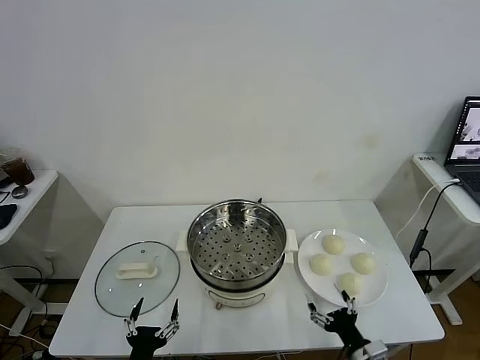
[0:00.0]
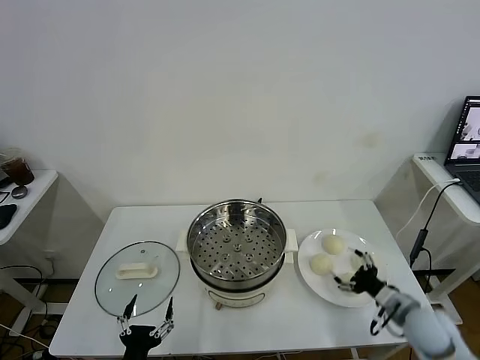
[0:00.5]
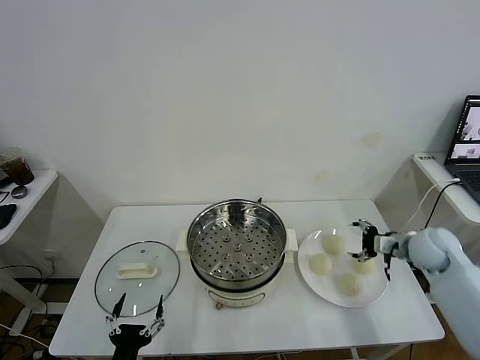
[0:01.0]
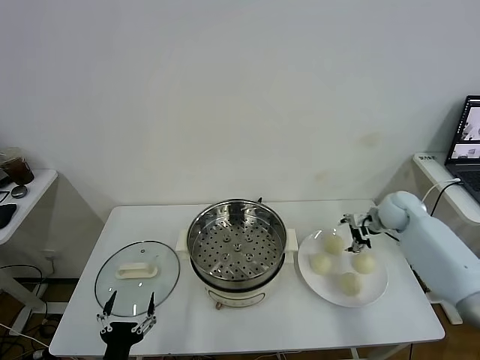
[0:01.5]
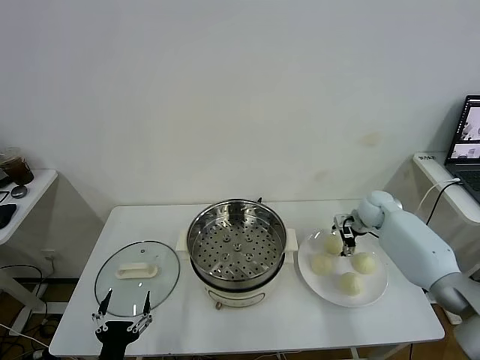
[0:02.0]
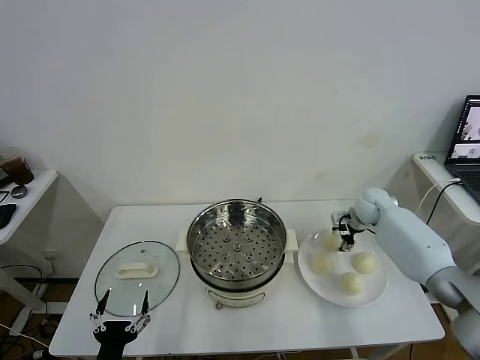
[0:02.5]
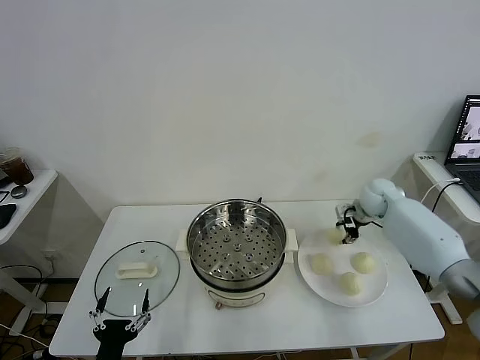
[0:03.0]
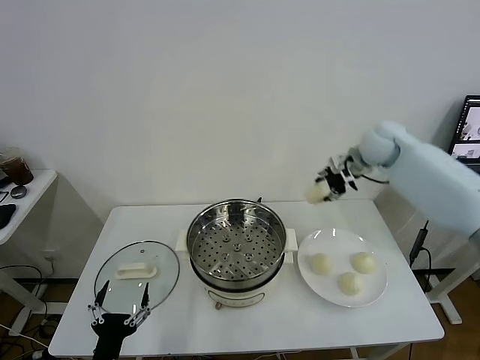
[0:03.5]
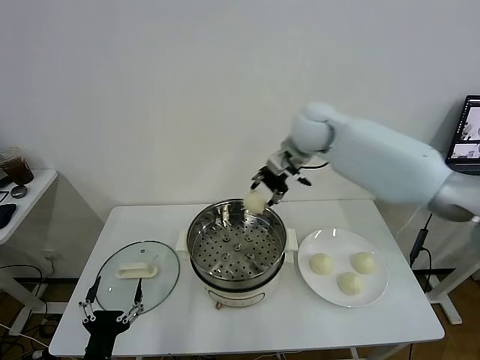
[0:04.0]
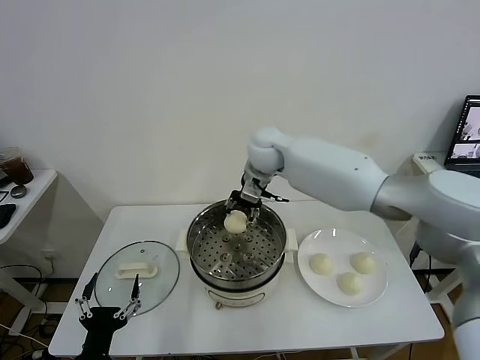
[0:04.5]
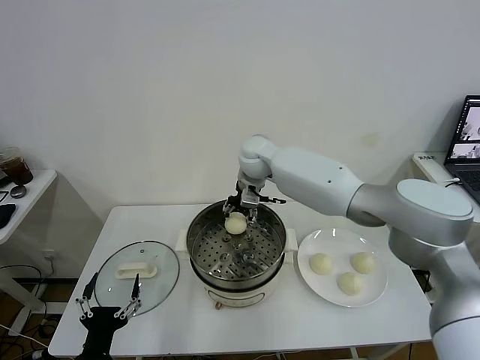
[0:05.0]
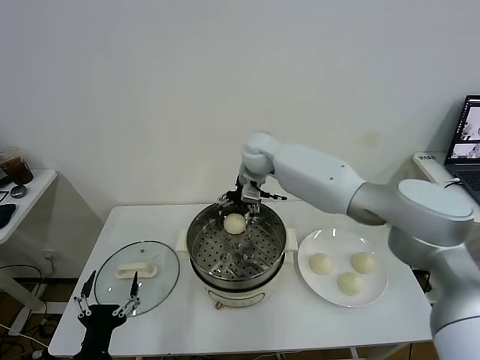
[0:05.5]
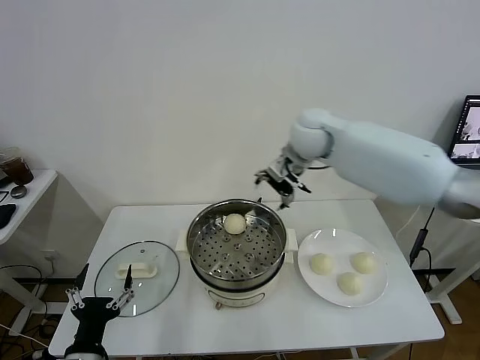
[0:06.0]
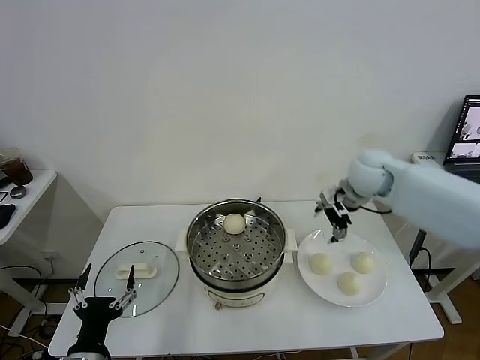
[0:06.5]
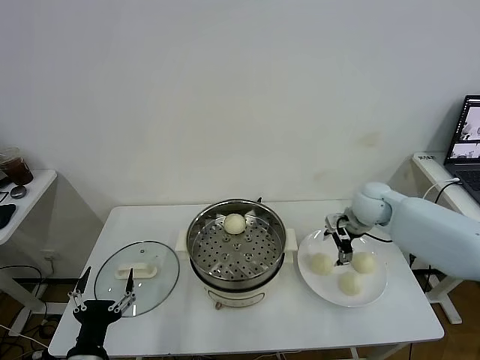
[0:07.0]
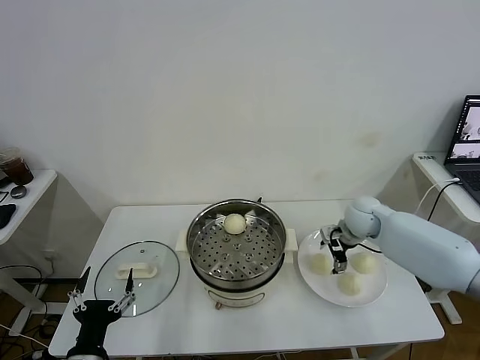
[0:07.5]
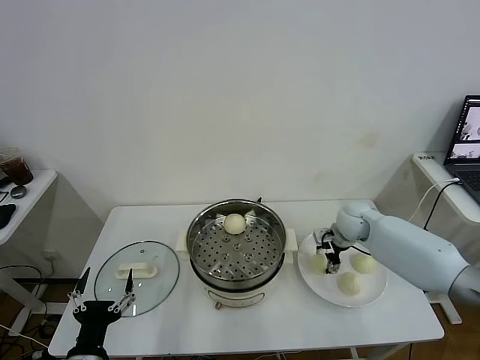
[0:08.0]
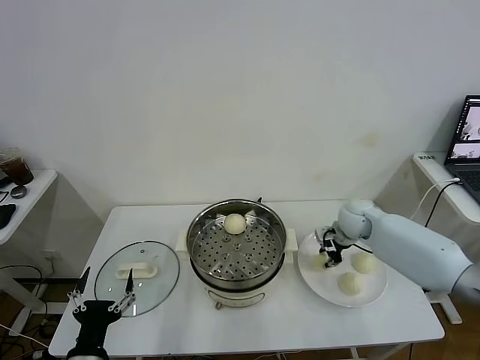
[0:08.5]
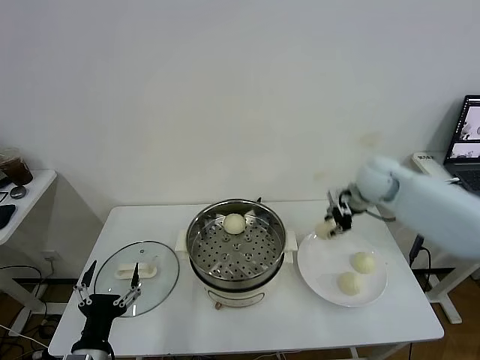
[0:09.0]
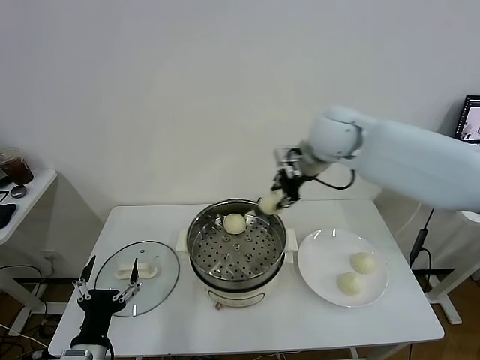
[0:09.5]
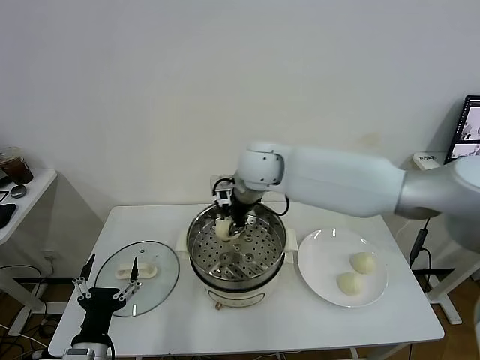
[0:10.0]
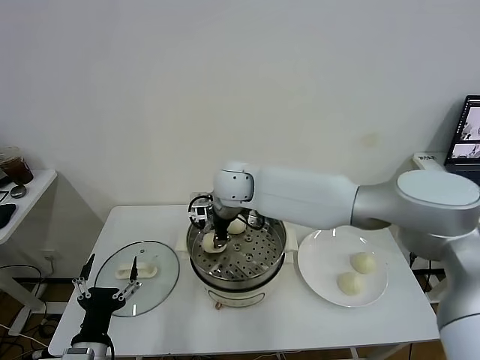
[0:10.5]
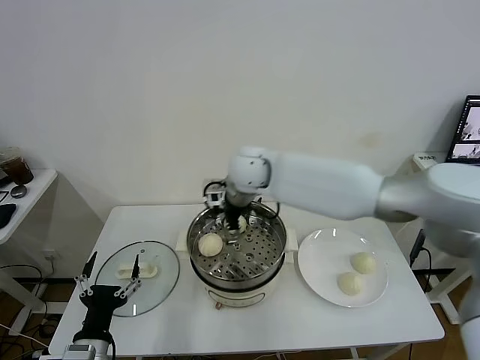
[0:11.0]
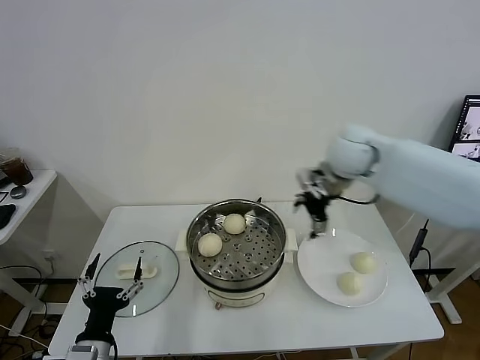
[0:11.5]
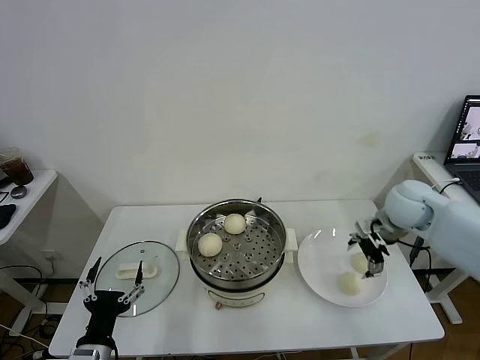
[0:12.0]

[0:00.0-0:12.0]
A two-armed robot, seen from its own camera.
Task of the whole recording: take steamed baozi put them in steamer.
Step, 0:00.0 to 0:02.5: Grasp the baozi in the plate with right gripper.
Step, 0:03.0 to 0:05.0: Place the baozi on the steamer with right gripper.
Step, 0:06.0 to 0:08.0: Grasp the baozi in the plate with right gripper.
Step, 0:09.0 to 0:10.5: Place the baozi on the steamer with right gripper.
0:02.0 to 0:04.0: The right gripper shifts about 35 cm to the left and upward, and closes up.
0:04.0 to 0:06.0: The right gripper heads to the right, covering about 10 cm, and opens its fingers.
0:06.0 to 0:08.0: The right gripper goes about 25 cm downward and to the right, and closes its fingers.
0:08.0 to 0:10.0: The right gripper shifts roughly 35 cm to the left and upward, and closes its fingers.
0:10.0 to 0:12.0: The right gripper shifts some 35 cm to the right, and opens its fingers.

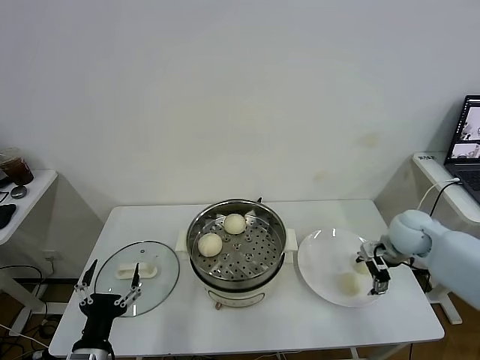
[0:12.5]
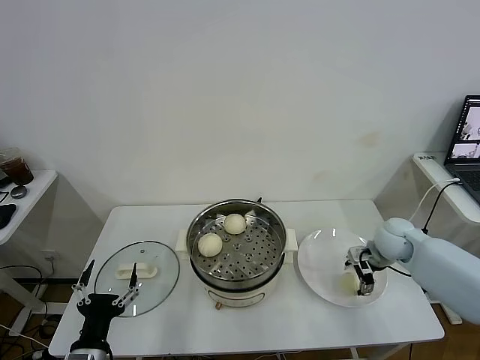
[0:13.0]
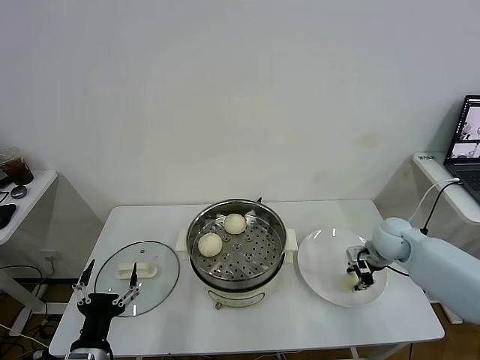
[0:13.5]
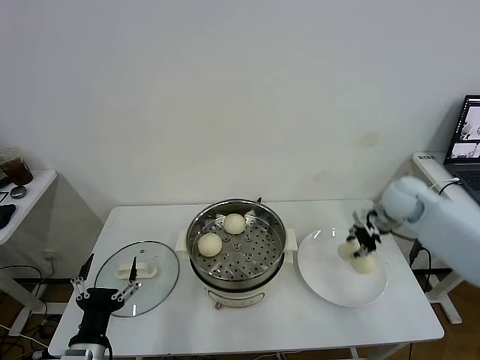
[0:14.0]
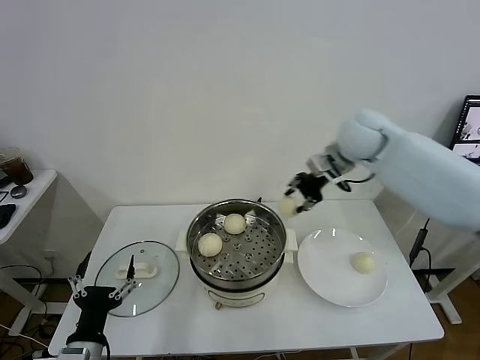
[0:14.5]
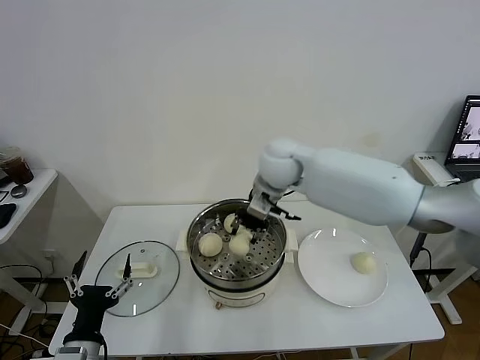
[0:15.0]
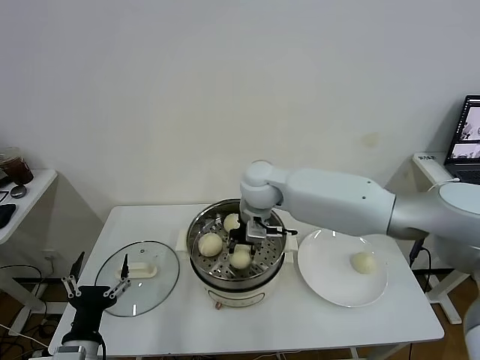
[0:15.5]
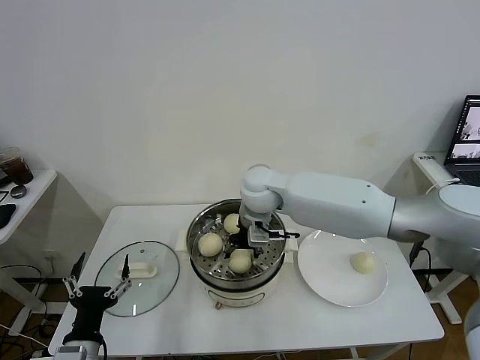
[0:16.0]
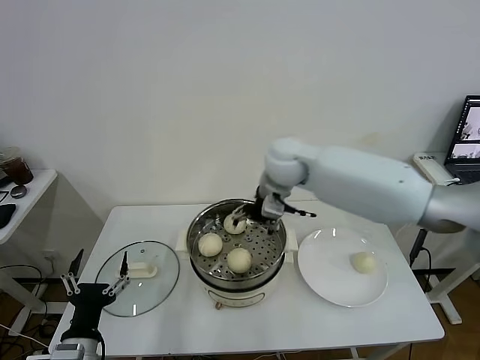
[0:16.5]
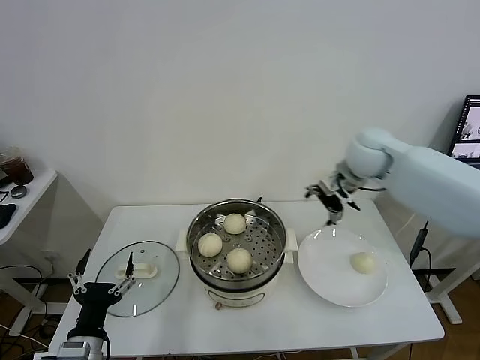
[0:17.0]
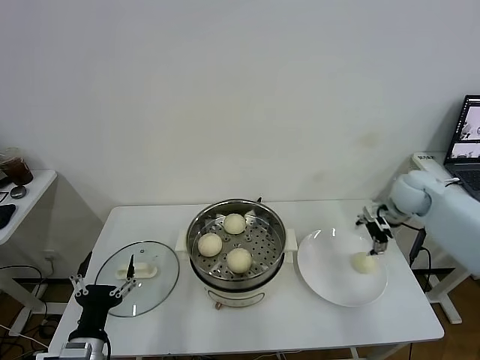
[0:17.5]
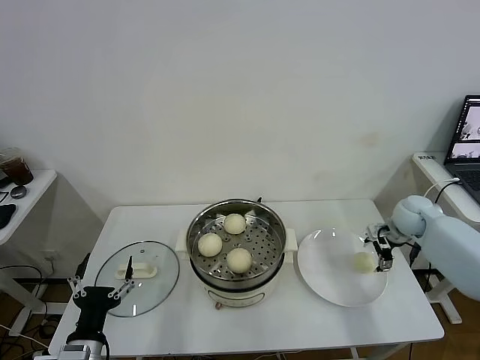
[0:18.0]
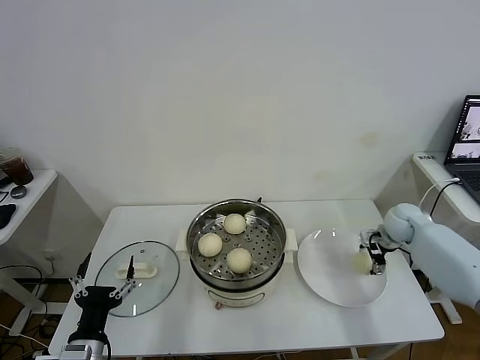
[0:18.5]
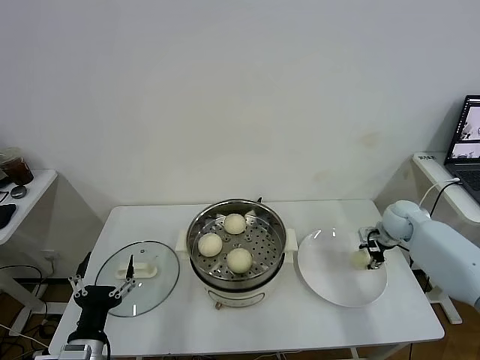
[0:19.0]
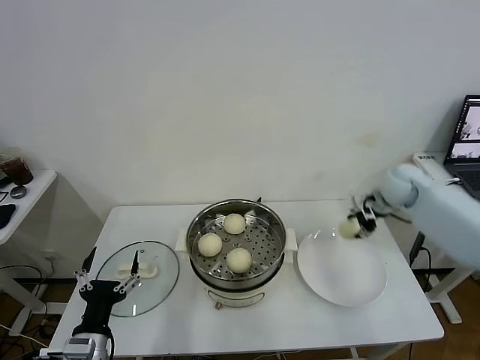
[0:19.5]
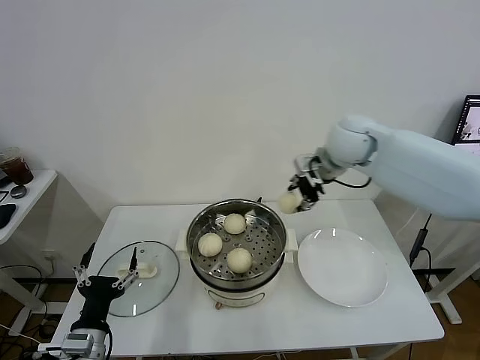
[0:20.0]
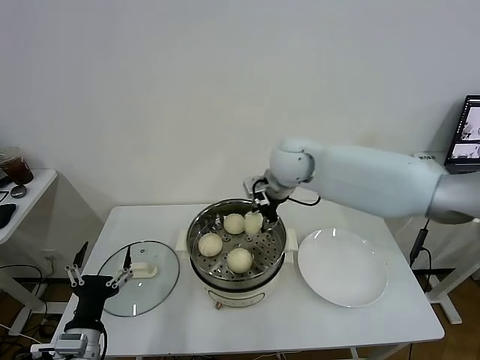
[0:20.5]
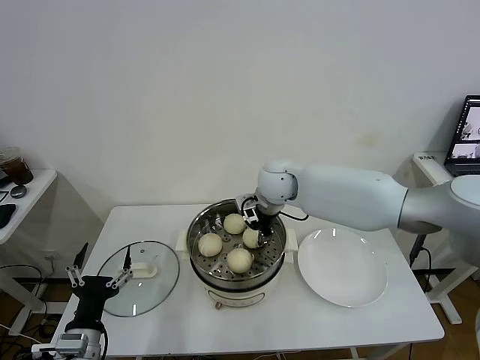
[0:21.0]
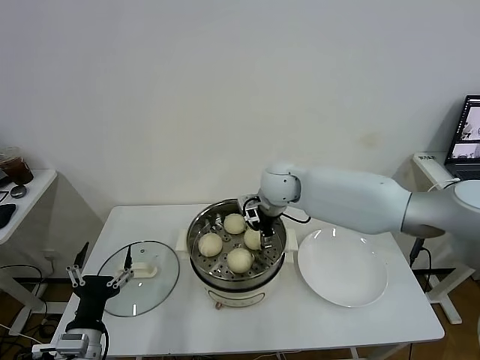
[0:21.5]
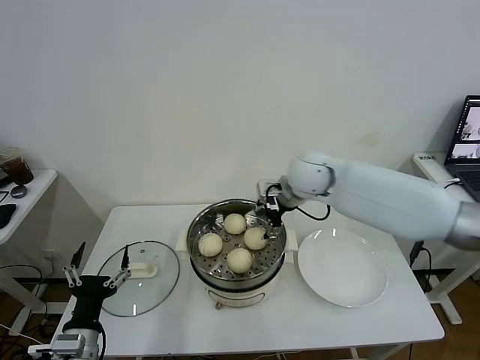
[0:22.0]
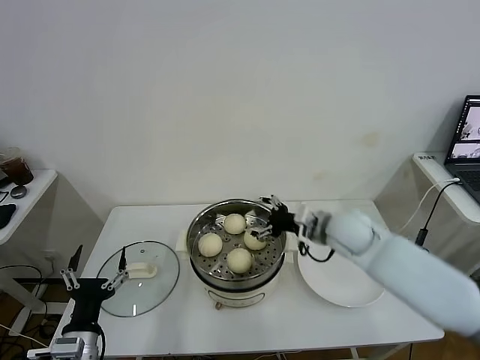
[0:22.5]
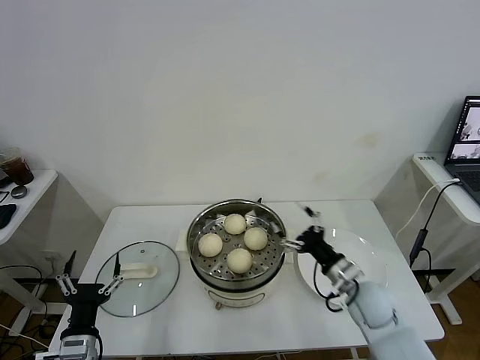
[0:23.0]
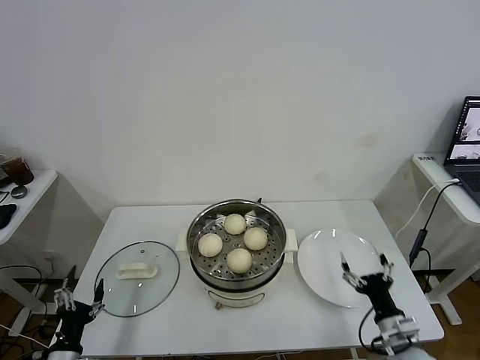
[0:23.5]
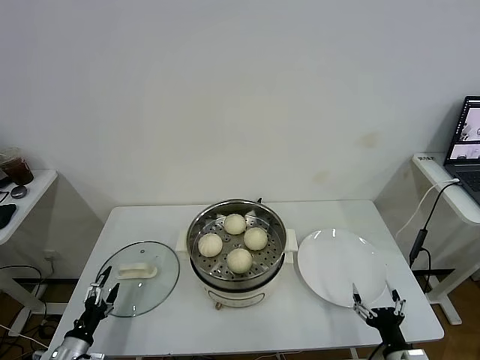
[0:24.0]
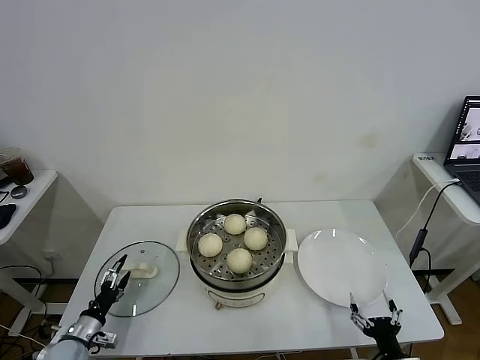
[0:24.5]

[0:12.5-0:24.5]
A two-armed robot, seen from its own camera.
Task of the whole recording: take steamed baozi put them in steamer.
Step, 0:14.0 to 0:16.0: Place the baozi on the steamer with right gripper.
Step, 0:16.5 to 0:19.0: Grasp the baozi in the plate with right gripper.
Step, 0:19.5 to 0:21.5: Place the baozi on the steamer with right gripper.
0:12.5 to 0:14.5: The right gripper is displaced upward, to the left and forward by some 30 cm, and closes its fingers.
0:14.5 to 0:16.5: The right gripper goes roughly 10 cm to the left, and opens up.
0:16.5 to 0:18.5: The right gripper shifts approximately 35 cm to the right and downward.
0:18.5 to 0:20.5: The right gripper travels to the left and upward by roughly 35 cm, and closes up.
0:20.5 to 0:22.5: The right gripper shifts about 20 cm to the right, downward and backward, and opens.
0:22.5 to 0:24.5: The right gripper moves backward, downward and to the right, roughly 40 cm. The left gripper heads downward, to the left and forward, covering roughly 20 cm.

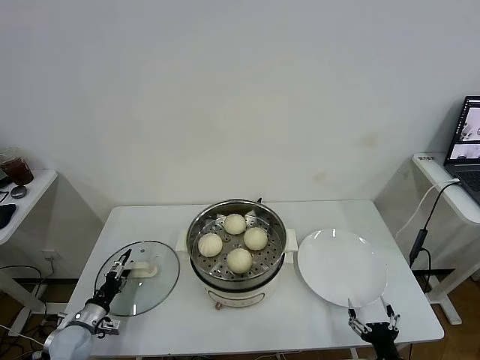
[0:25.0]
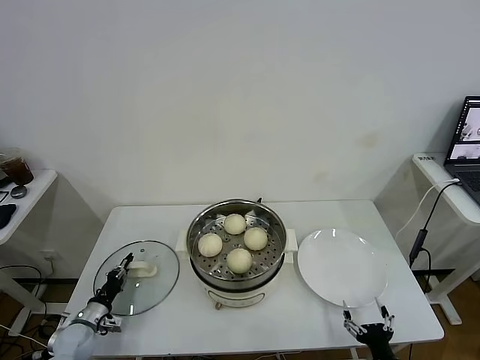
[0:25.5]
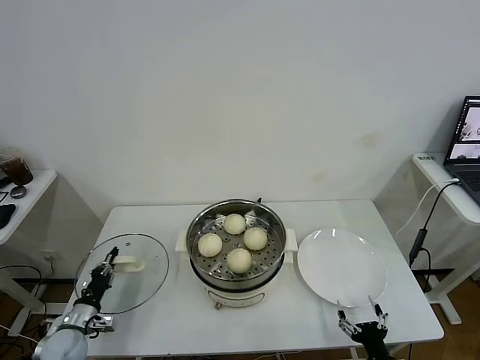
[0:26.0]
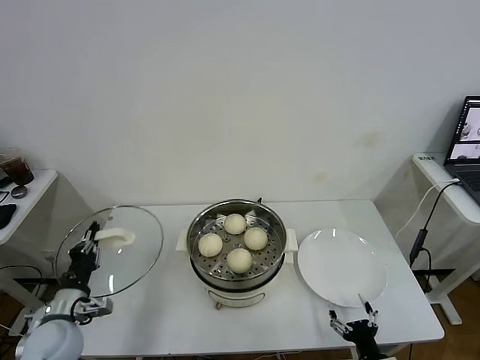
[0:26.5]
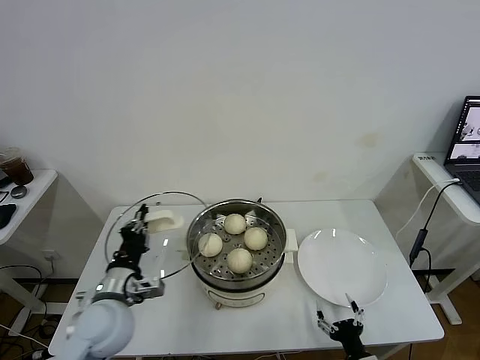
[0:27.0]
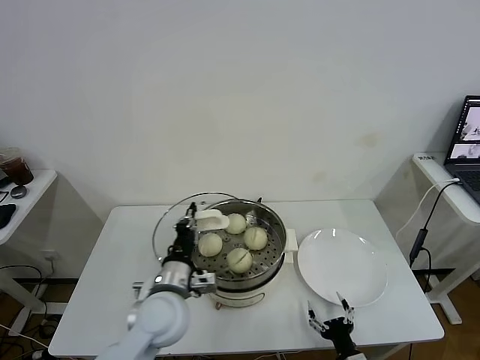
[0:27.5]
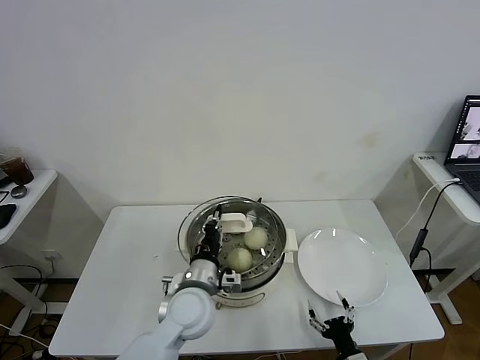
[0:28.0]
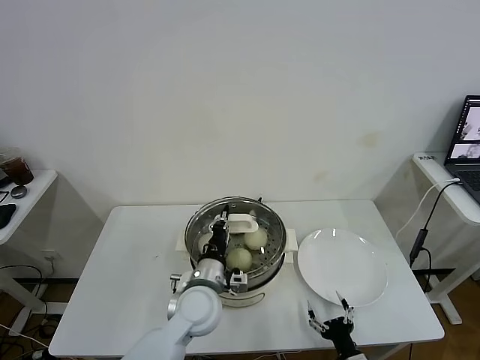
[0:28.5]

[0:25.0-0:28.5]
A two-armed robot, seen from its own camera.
Task of the whole recording: take steamed baozi put them in steamer.
0:25.0 to 0:27.0: The left gripper heads upward and to the right, covering some 30 cm, and closes its fingers. The right gripper shifts by some 5 cm.
0:27.0 to 0:28.5: The left gripper goes about 15 cm to the right.
